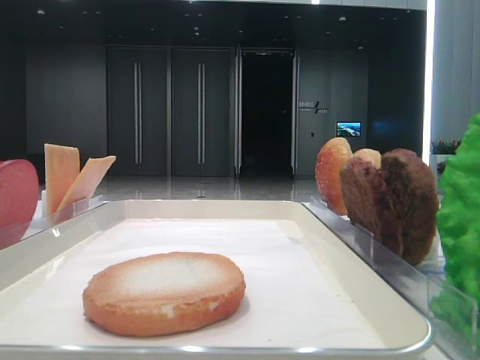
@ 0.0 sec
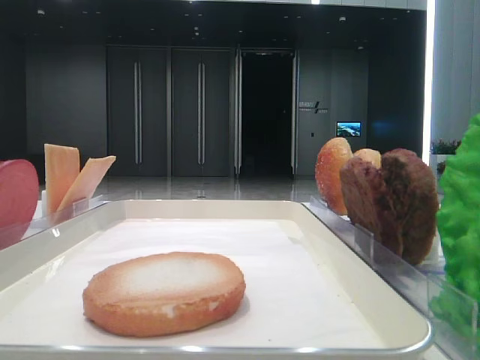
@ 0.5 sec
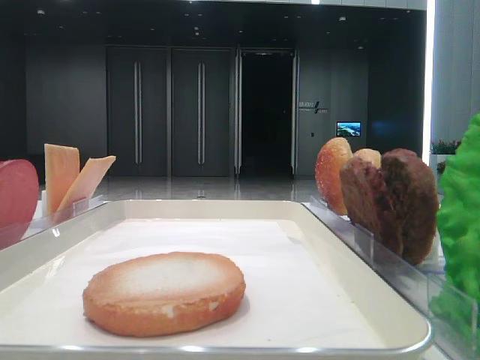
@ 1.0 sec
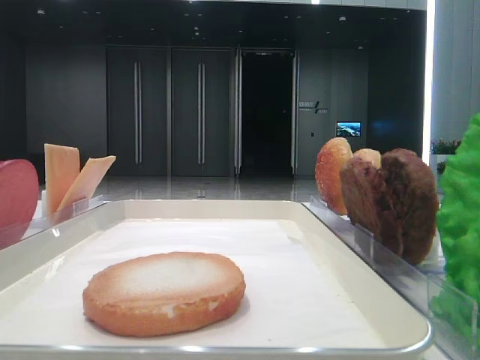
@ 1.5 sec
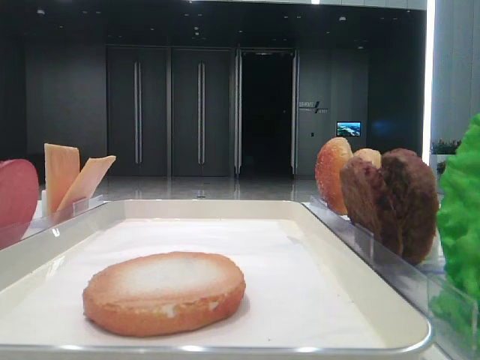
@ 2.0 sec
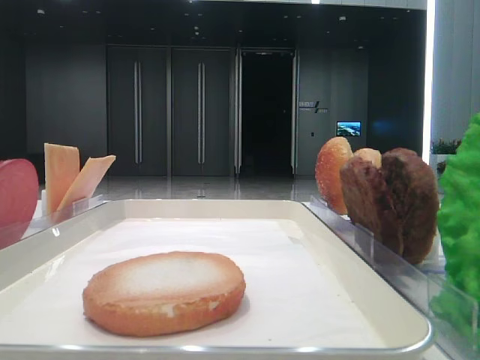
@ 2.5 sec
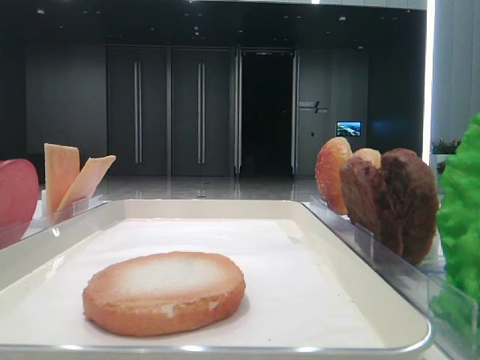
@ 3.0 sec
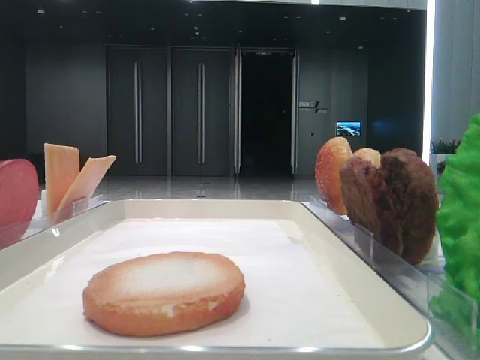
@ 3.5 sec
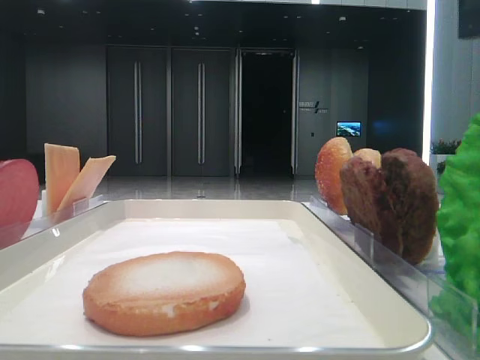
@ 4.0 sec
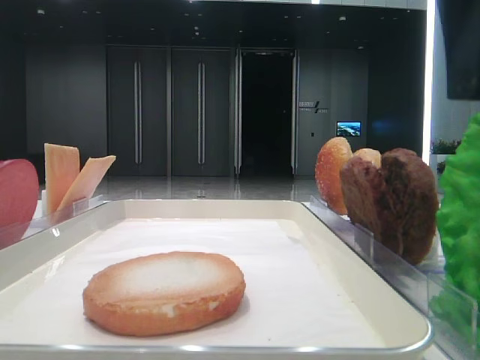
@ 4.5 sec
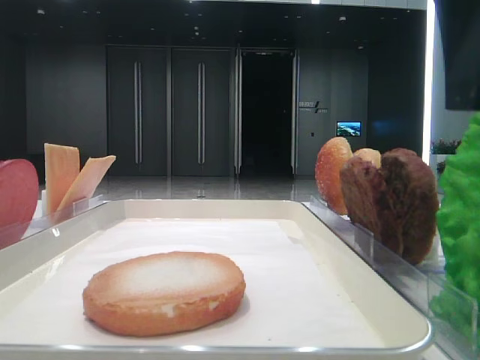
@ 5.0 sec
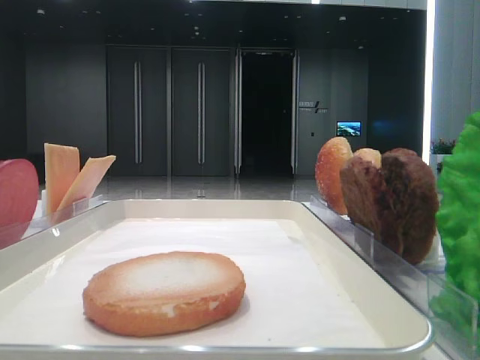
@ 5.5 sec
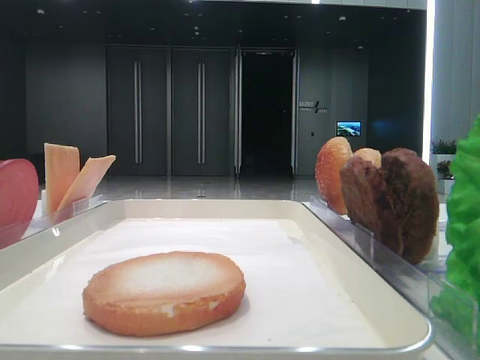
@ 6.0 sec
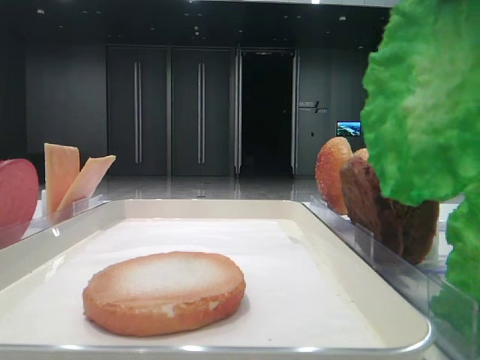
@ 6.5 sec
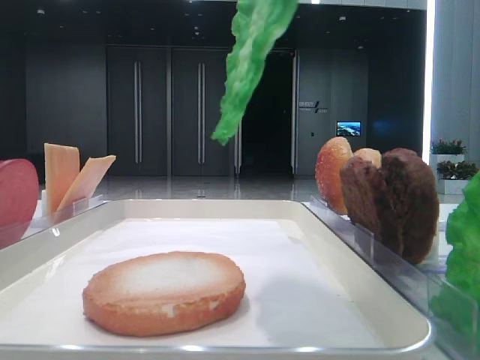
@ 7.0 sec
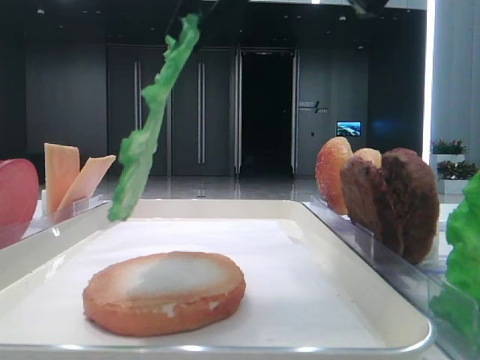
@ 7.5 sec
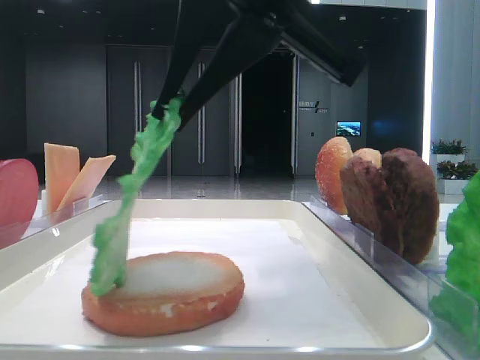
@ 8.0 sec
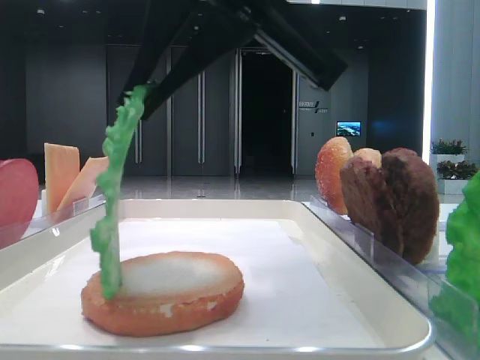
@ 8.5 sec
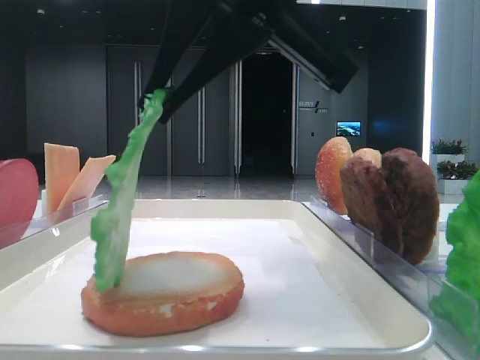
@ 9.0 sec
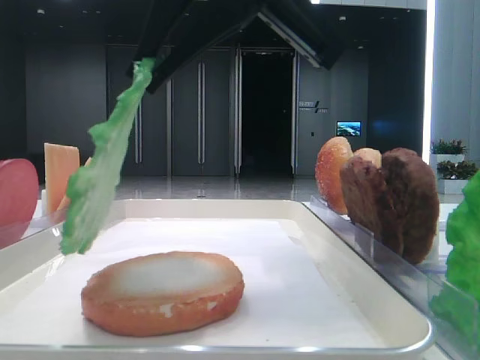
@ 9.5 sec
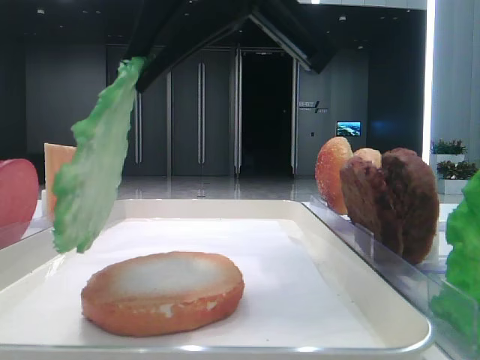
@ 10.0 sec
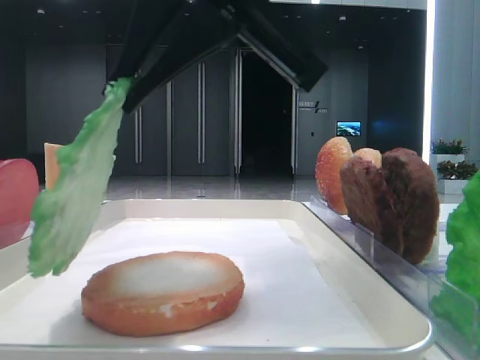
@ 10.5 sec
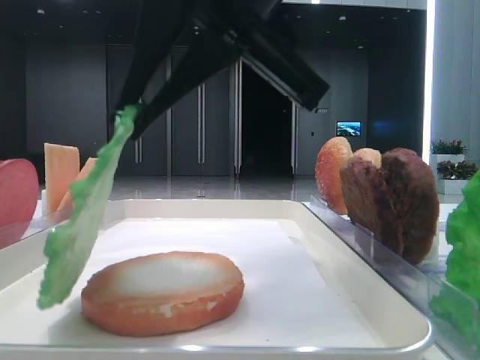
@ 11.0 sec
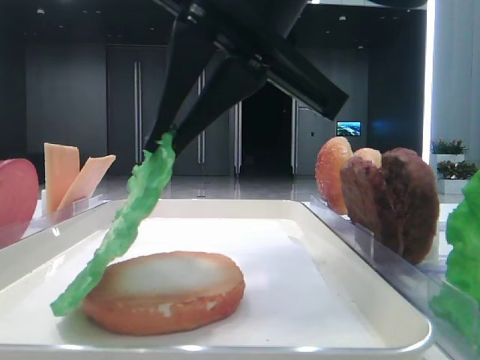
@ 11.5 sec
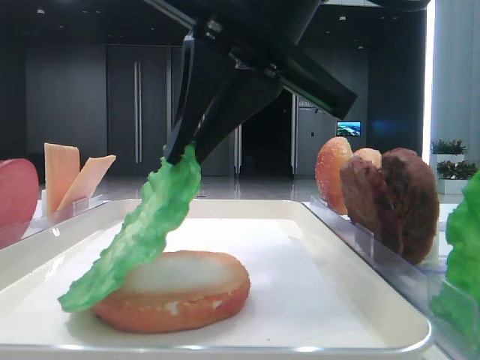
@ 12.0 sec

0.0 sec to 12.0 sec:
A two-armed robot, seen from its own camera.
Step, 0.0 sec to 5.5 sec: Grab the lettuce leaf with the right hand.
4.0 sec to 6.0 sec: The right gripper closes up.
6.0 sec to 8.0 sec: The right gripper is displaced to the left by approximately 15 cm.
8.0 sec to 12.0 sec: The grippers make only small movements.

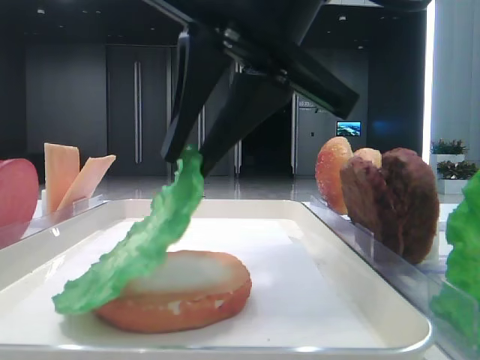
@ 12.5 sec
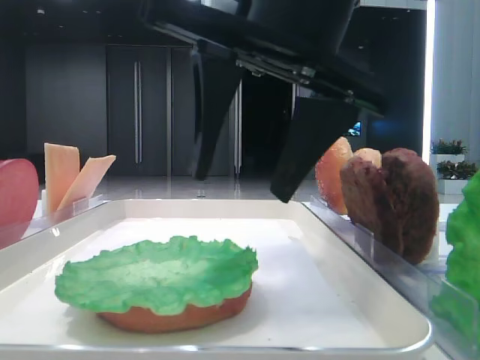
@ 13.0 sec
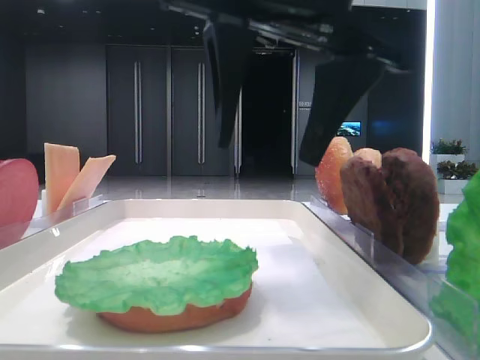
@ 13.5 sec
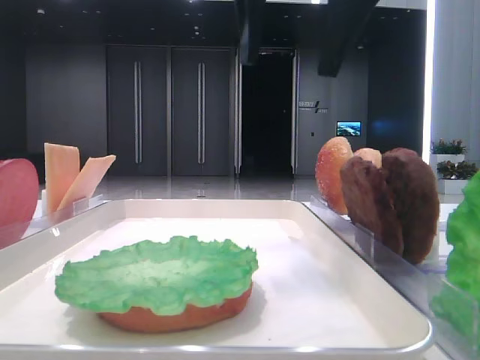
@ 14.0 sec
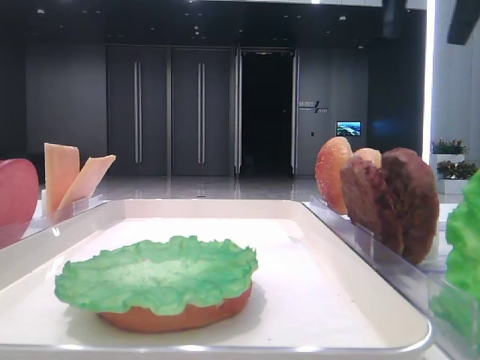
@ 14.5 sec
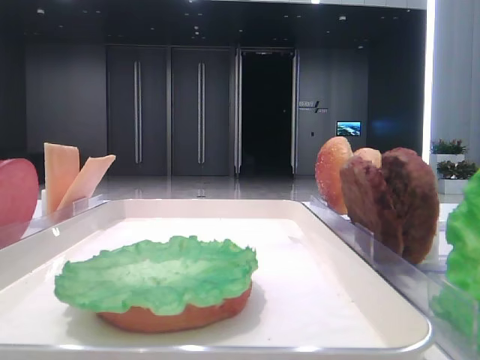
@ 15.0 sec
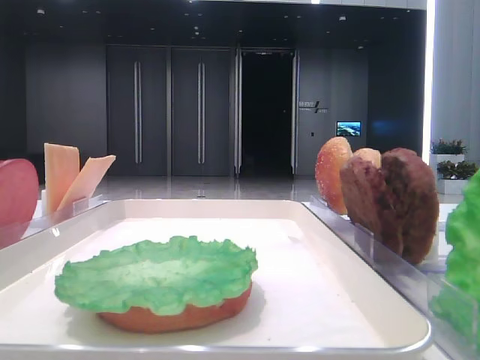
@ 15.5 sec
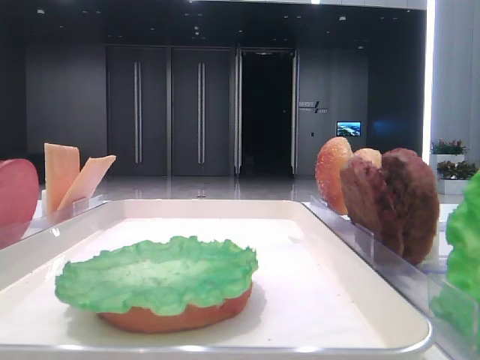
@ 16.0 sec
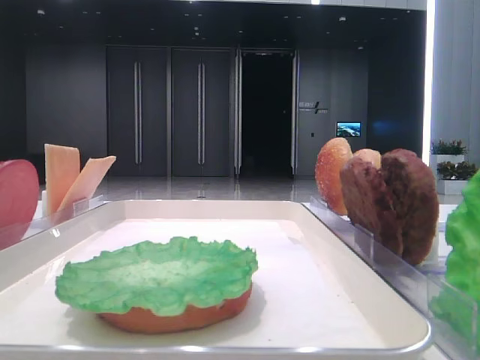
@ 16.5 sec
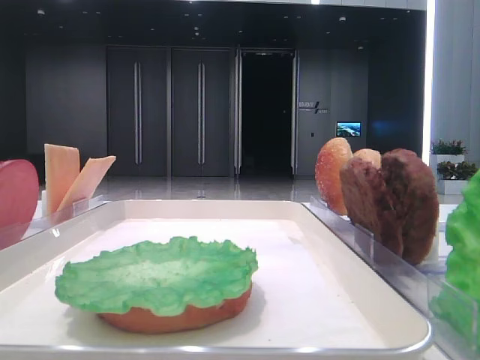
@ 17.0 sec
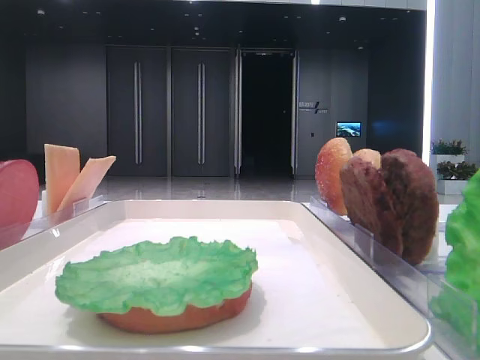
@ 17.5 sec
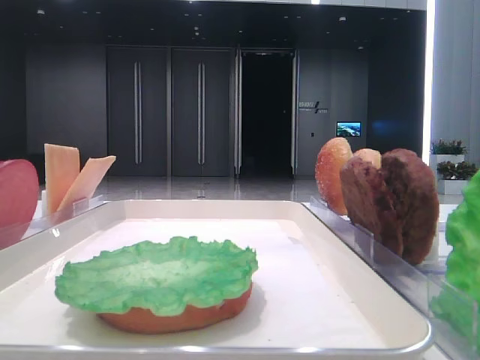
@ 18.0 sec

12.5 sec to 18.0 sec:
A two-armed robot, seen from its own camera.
12.5 sec to 14.5 sec: The right gripper travels to the right, upward and forward by approximately 20 cm, and opens up.
14.5 sec to 16.0 sec: The right gripper goes roughly 20 cm backward and to the right.

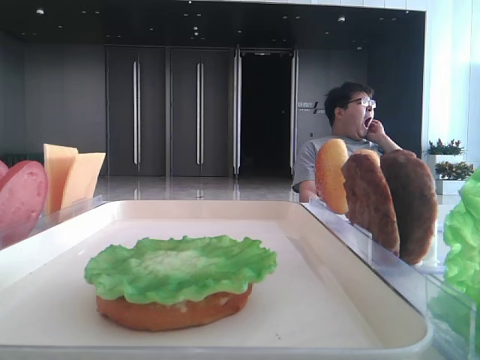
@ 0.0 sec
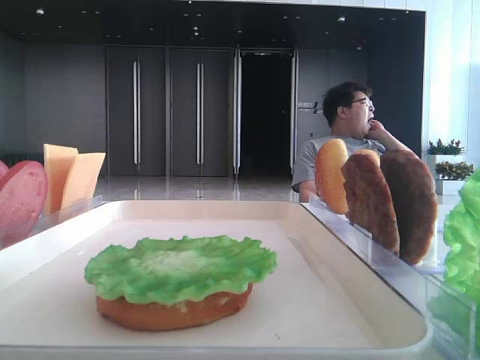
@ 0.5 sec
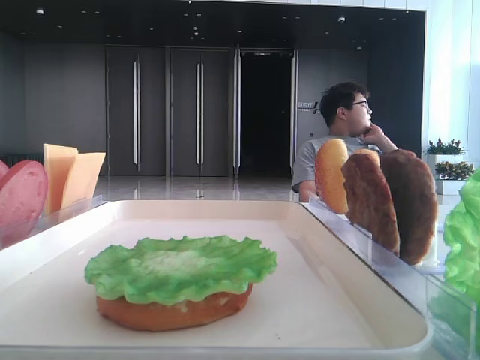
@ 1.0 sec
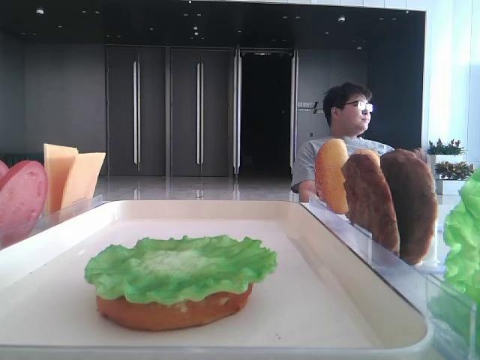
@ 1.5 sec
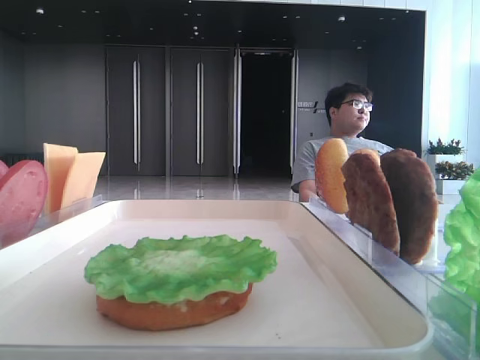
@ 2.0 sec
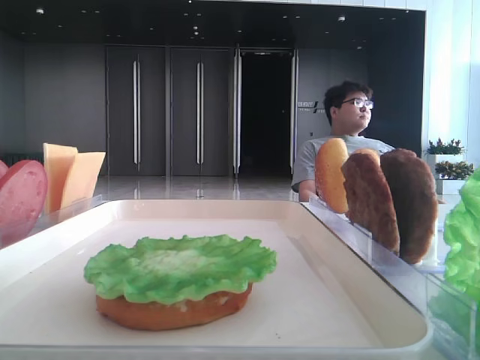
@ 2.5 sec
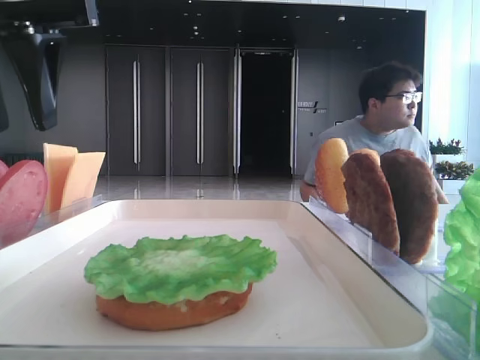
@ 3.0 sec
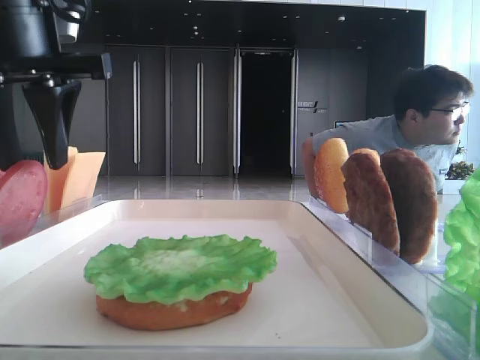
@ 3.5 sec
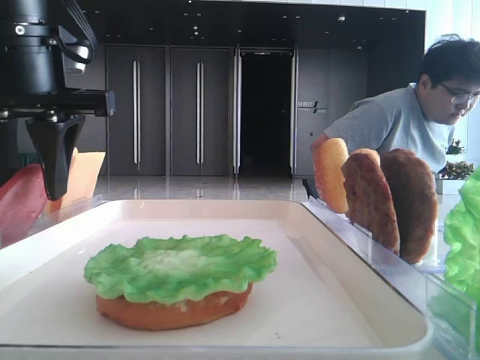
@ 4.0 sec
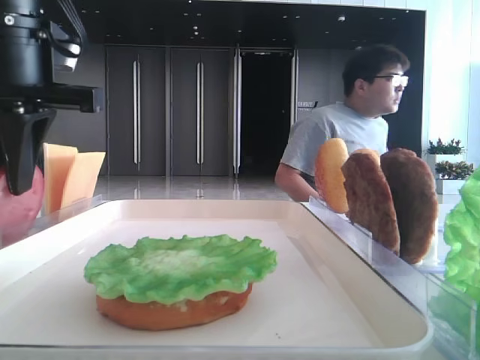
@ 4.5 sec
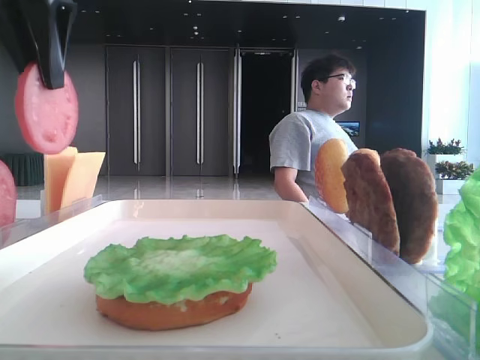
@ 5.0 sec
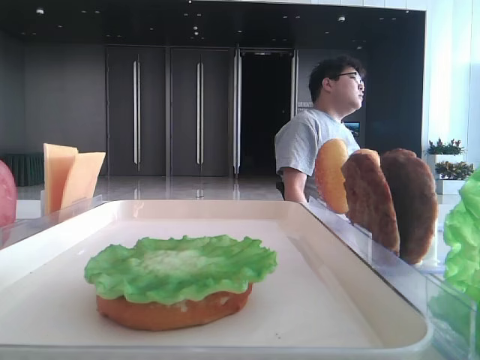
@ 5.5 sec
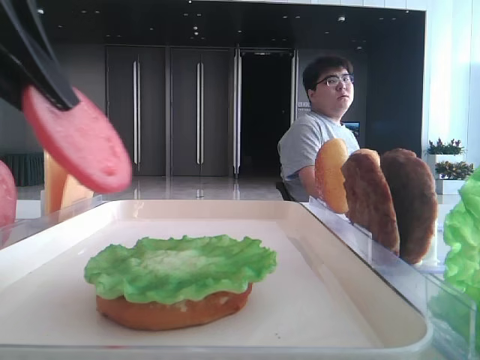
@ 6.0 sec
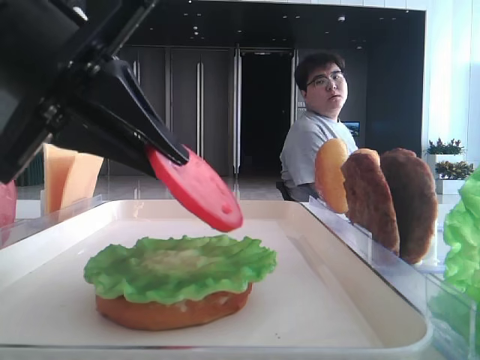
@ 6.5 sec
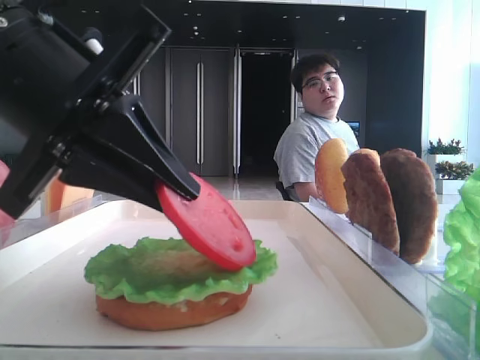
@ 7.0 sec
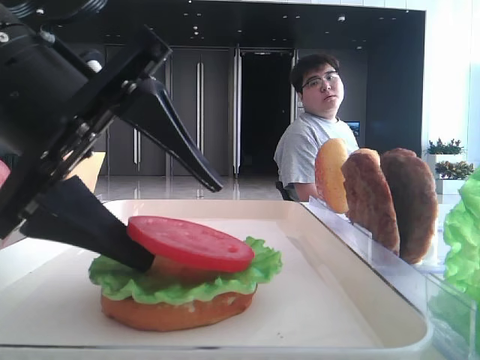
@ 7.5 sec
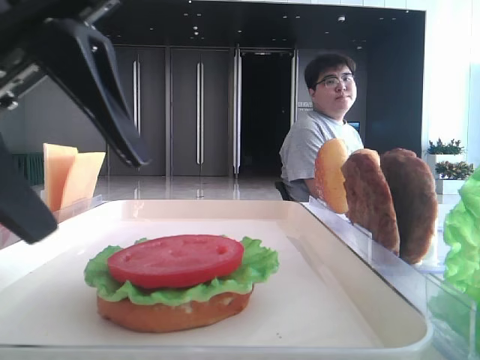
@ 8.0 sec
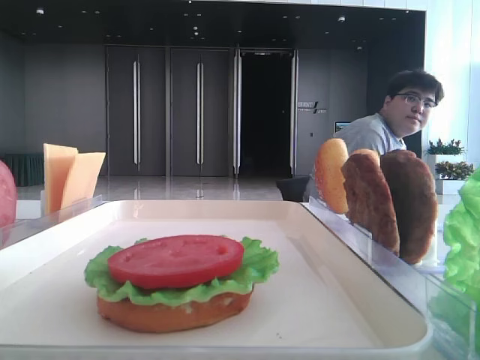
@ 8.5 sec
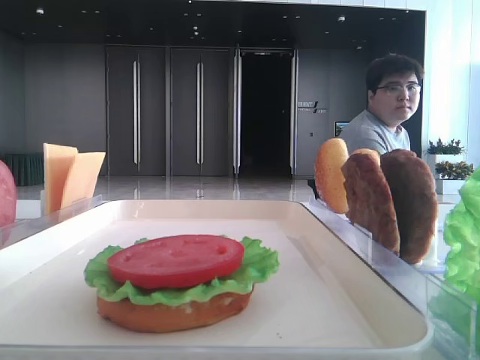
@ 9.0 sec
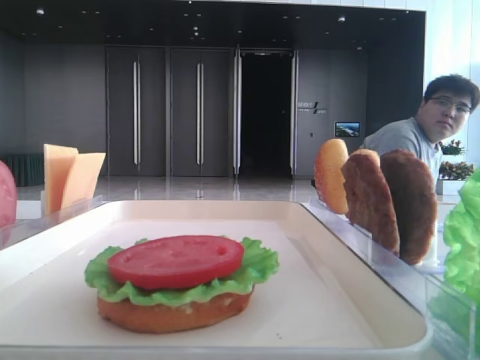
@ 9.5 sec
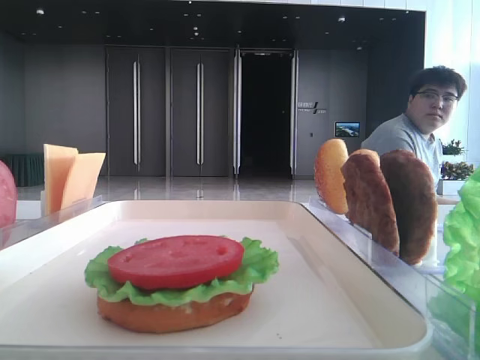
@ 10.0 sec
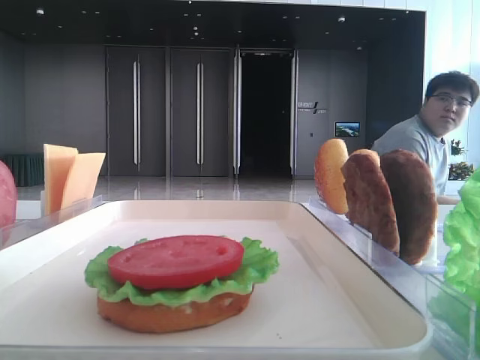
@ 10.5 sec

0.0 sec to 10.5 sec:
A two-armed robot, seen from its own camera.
Step, 0.0 sec to 4.0 sec: Pick up the tomato slice with the left hand.
Step, 5.0 sec to 7.5 sec: Place the tomato slice on the lettuce leaf with the left hand.
2.0 sec to 4.0 sec: The left gripper is displaced to the right, downward and forward by roughly 20 cm.
4.0 sec to 6.5 sec: The left gripper travels backward by about 10 cm, travels upward and back again, about 10 cm each way, and closes its fingers.
6.5 sec to 8.5 sec: The left gripper travels upward and to the left by approximately 15 cm, and opens up.
